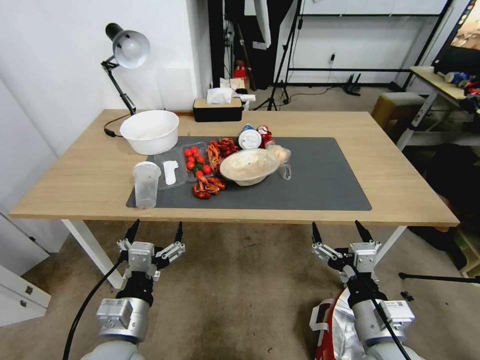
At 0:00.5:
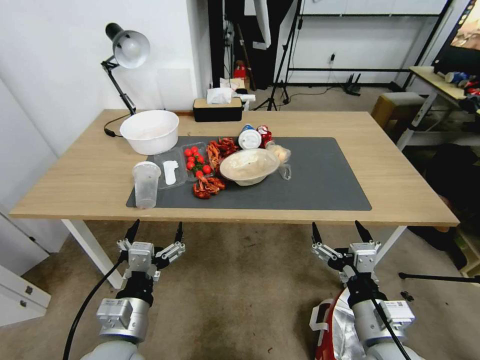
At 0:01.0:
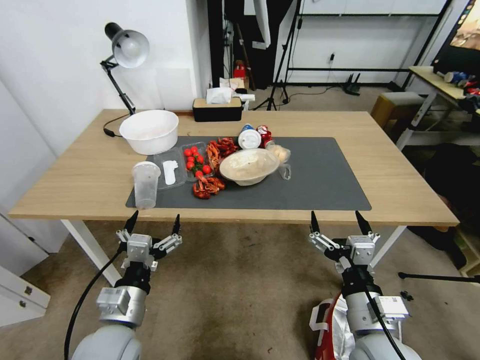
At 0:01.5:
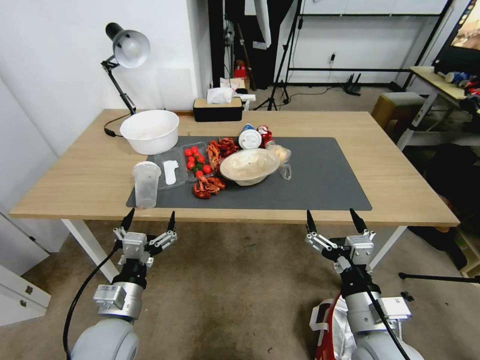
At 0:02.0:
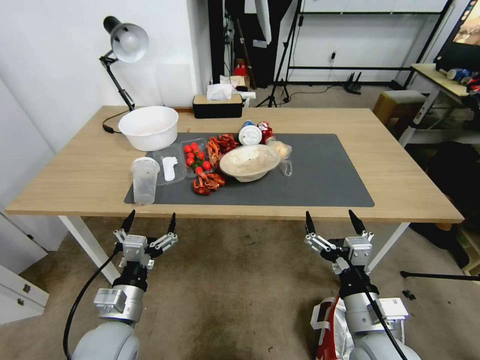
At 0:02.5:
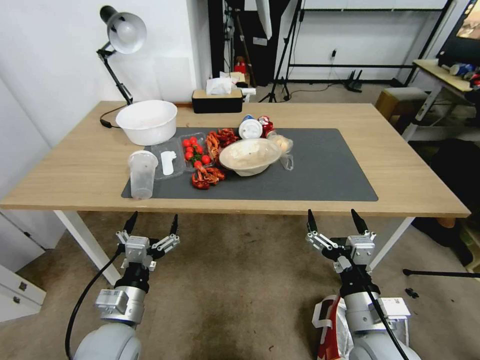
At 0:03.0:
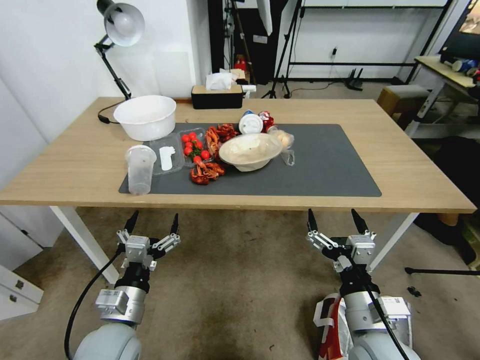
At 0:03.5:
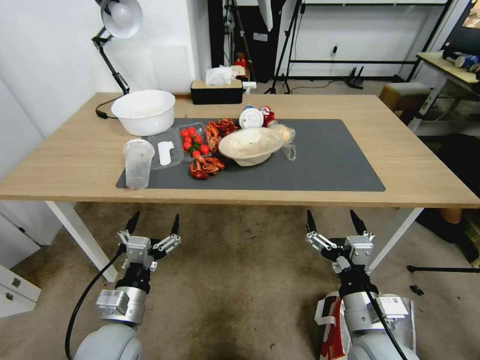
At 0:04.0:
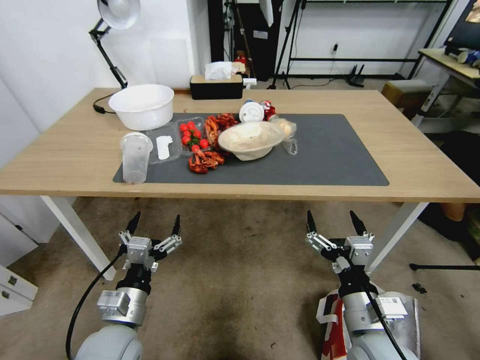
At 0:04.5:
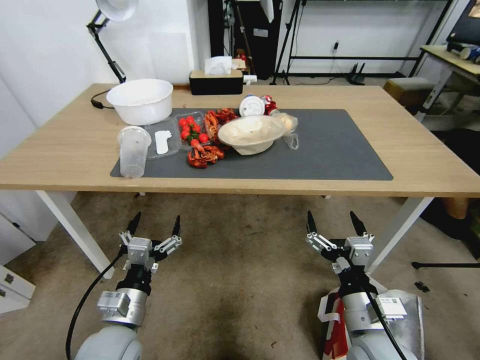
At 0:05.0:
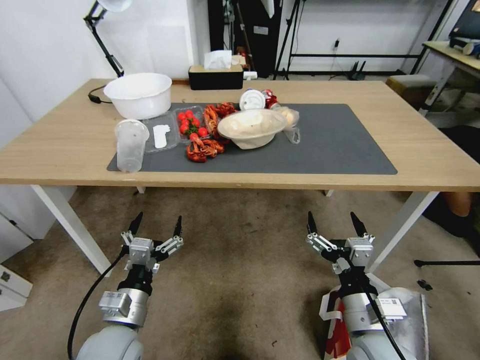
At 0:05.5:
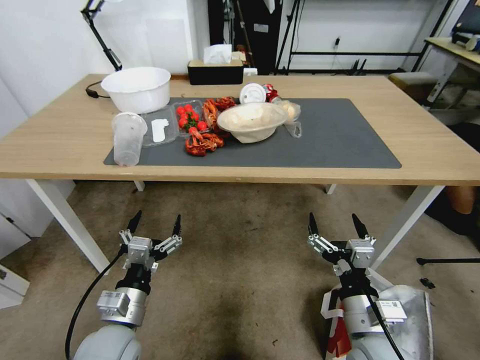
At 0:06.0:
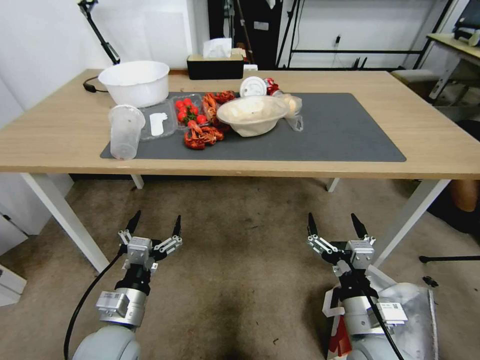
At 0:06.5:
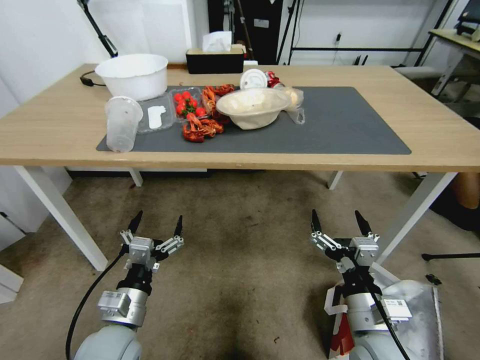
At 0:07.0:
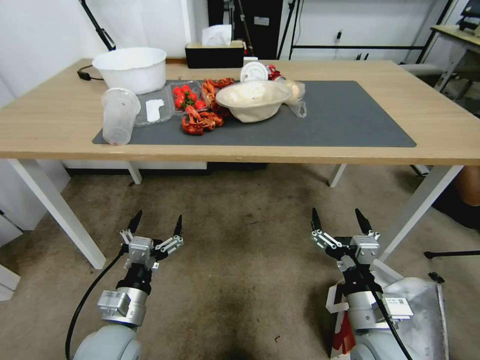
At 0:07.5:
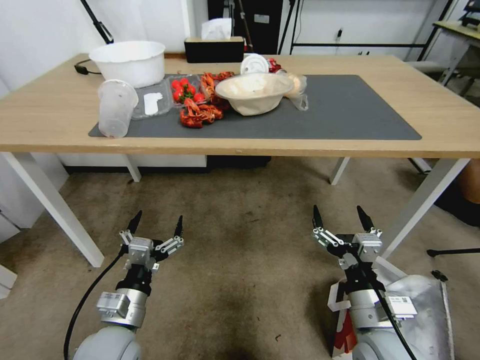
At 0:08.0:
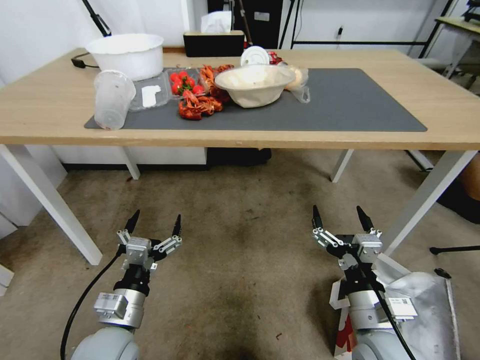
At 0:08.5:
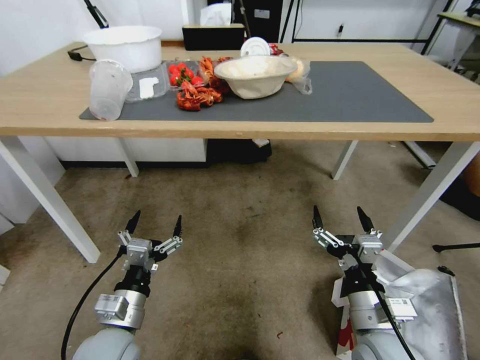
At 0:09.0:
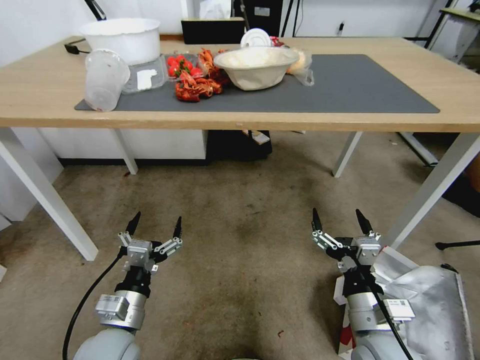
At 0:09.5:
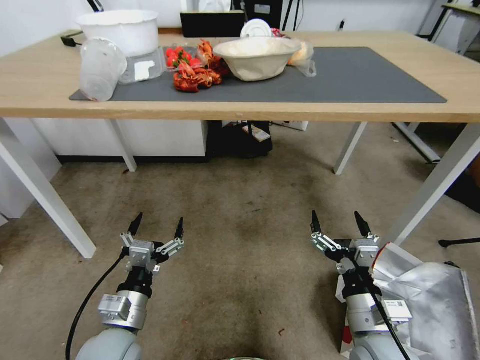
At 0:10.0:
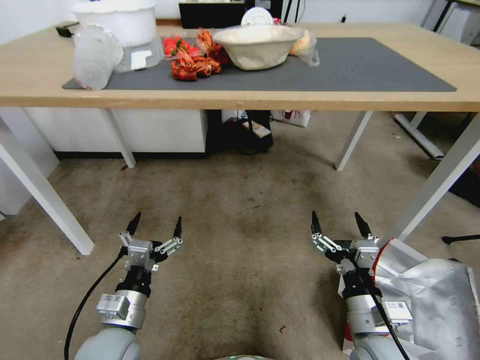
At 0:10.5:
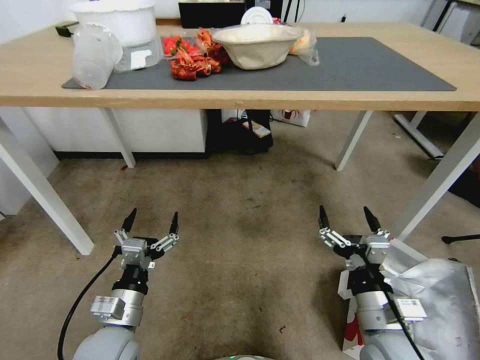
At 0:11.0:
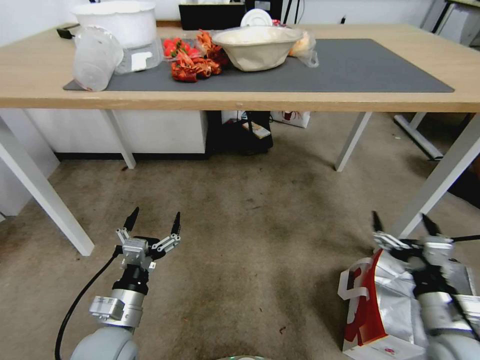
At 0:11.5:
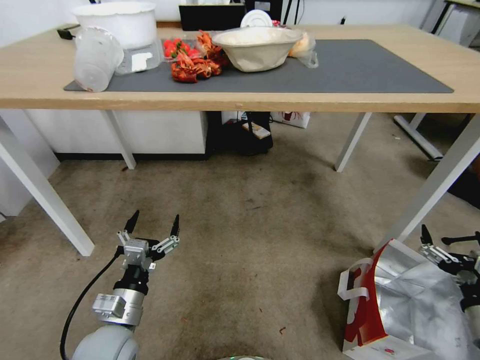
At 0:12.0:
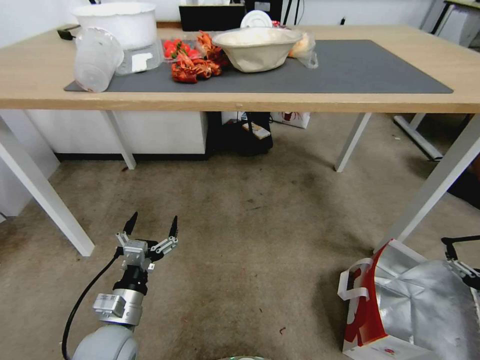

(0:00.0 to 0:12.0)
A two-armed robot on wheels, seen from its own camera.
Task of the whole recording: Pick up the food delivery bag from the floor and place it on the table.
0:10.0 - 0:12.0: The right gripper is displaced to the right by approximately 25 cm.

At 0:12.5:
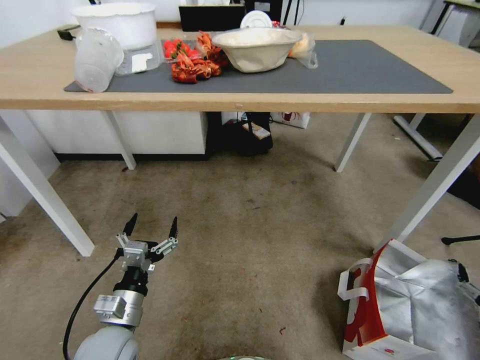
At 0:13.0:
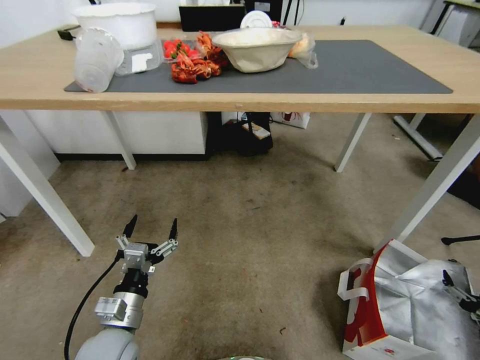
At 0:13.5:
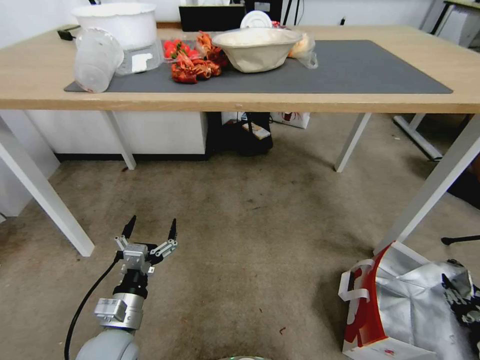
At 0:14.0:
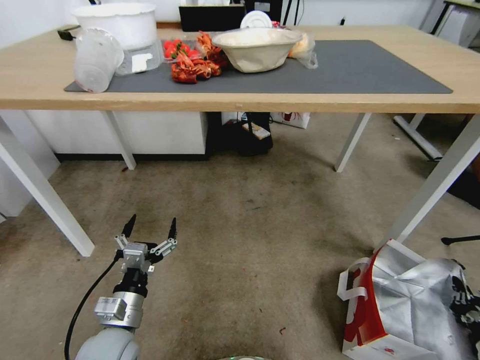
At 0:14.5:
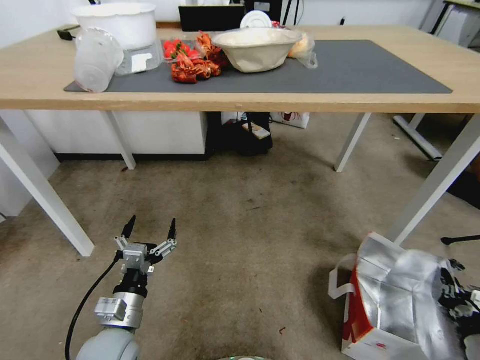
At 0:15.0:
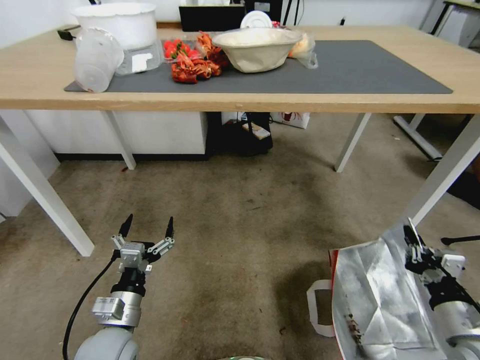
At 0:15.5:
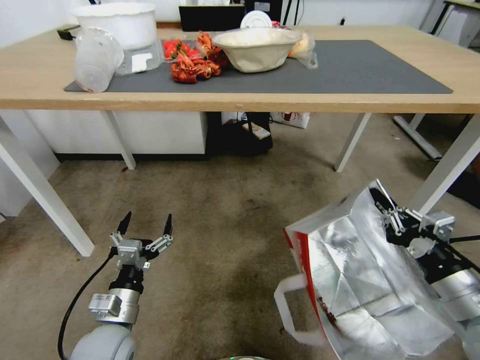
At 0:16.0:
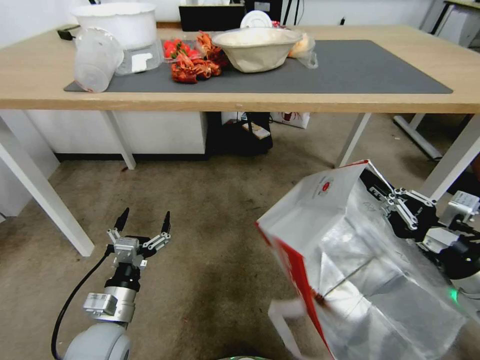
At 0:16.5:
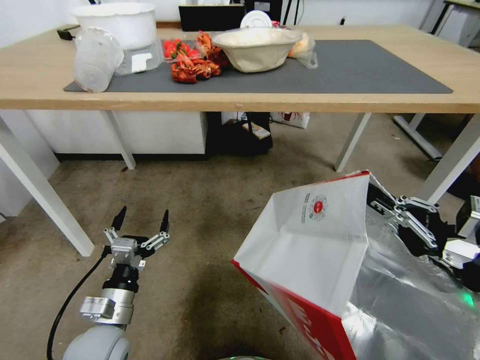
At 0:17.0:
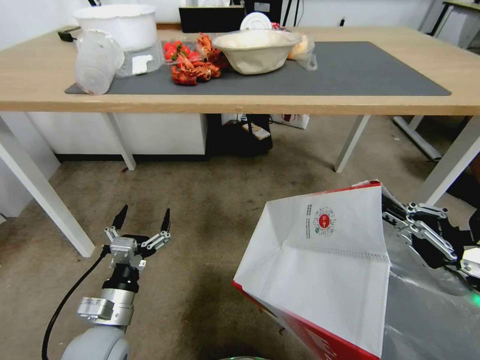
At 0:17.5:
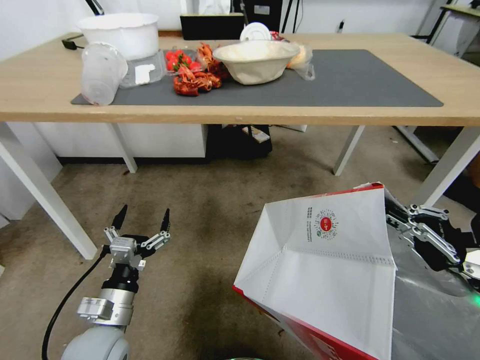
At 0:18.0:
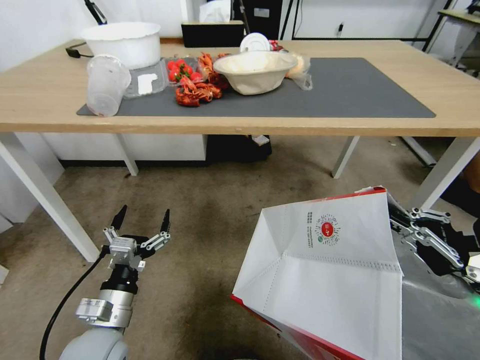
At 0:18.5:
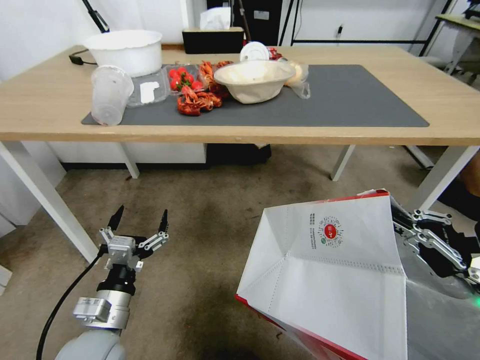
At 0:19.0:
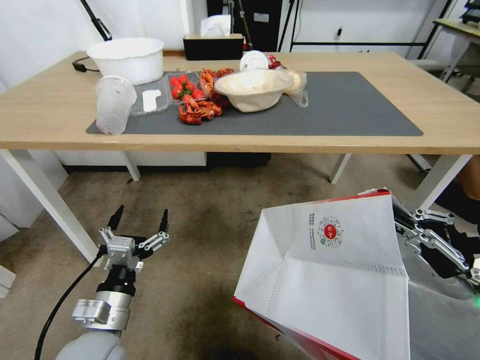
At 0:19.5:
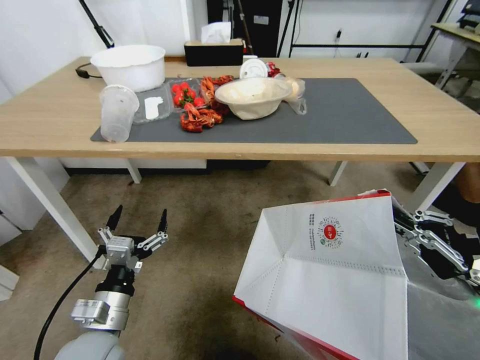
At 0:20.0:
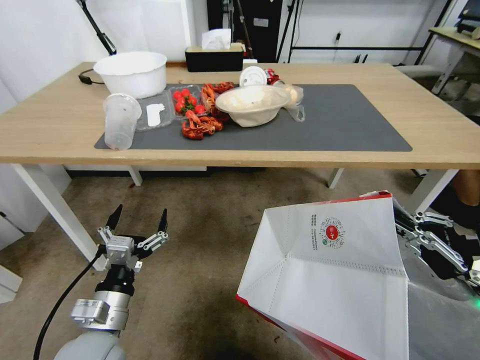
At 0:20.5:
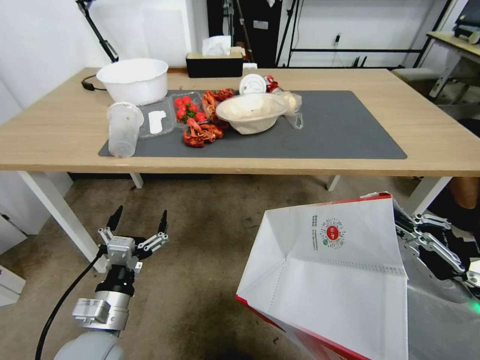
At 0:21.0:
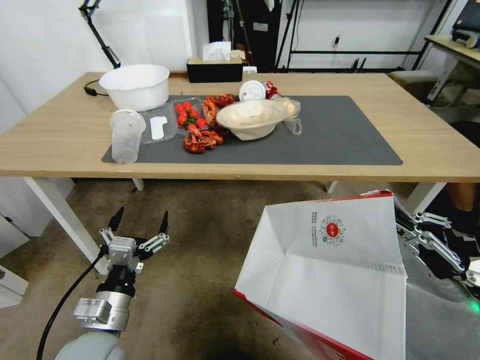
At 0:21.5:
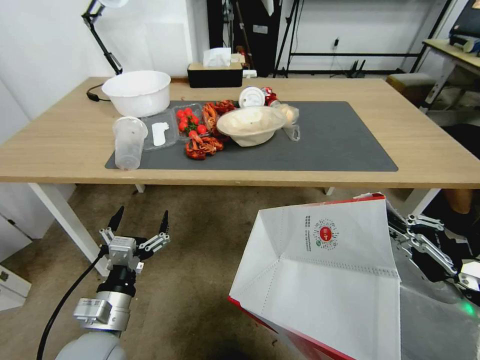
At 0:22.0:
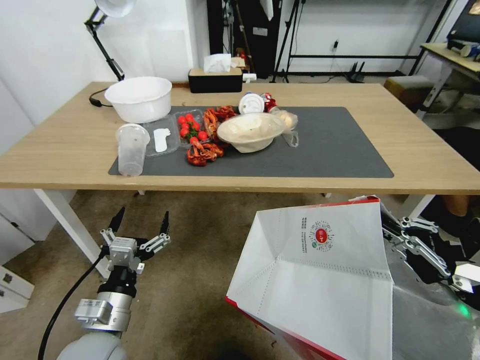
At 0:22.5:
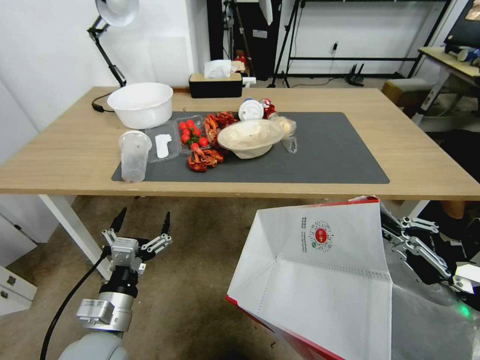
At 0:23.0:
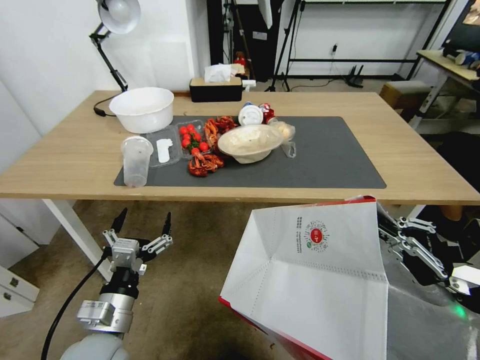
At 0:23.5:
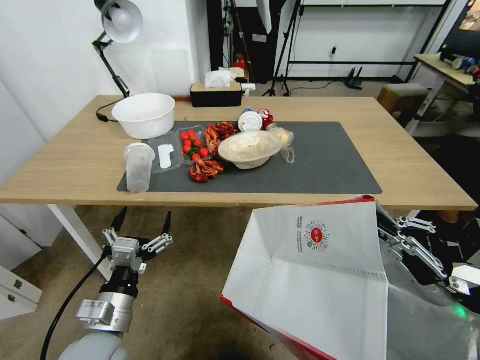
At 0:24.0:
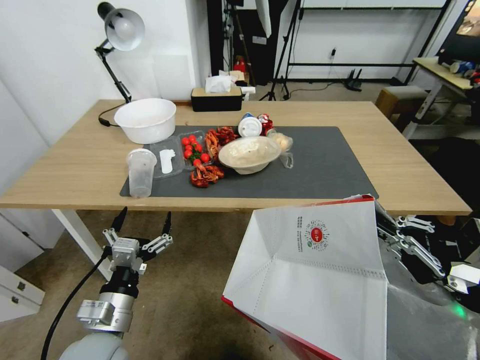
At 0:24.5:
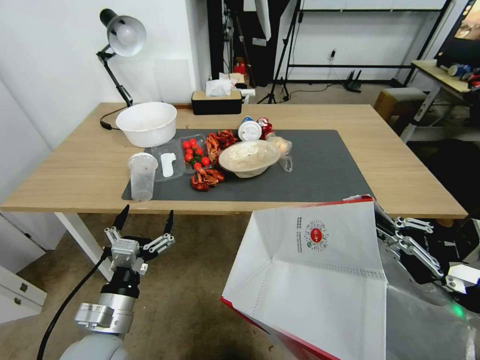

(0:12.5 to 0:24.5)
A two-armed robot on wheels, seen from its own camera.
Task of the whole recording: Pick up the food delivery bag from the floor and place it on the table.
0:12.5 - 0:14.5: The right gripper closes up.
0:14.5 - 0:16.5: The right gripper heads upward, covering some 25 cm.

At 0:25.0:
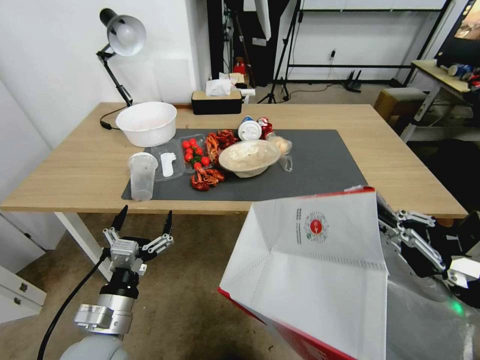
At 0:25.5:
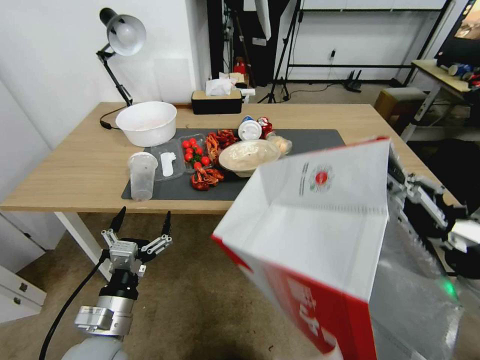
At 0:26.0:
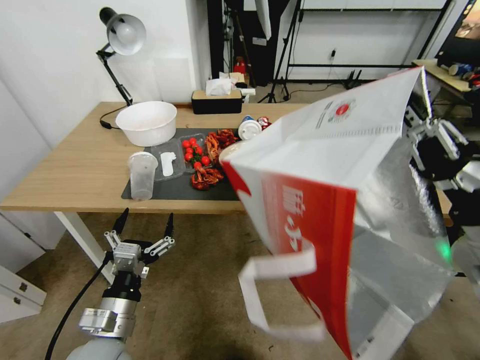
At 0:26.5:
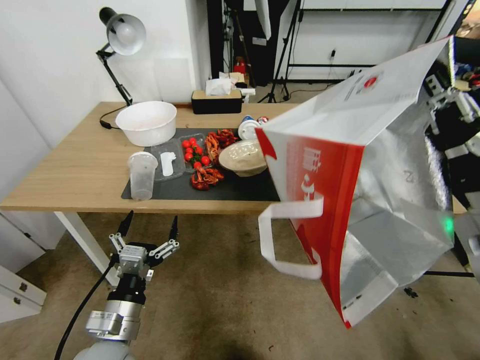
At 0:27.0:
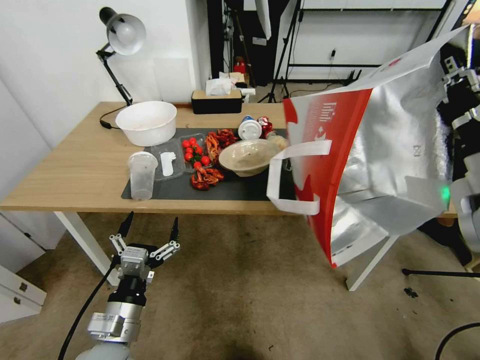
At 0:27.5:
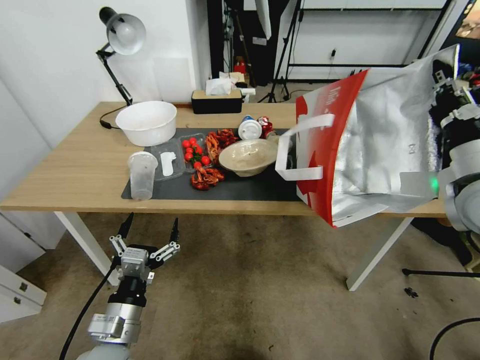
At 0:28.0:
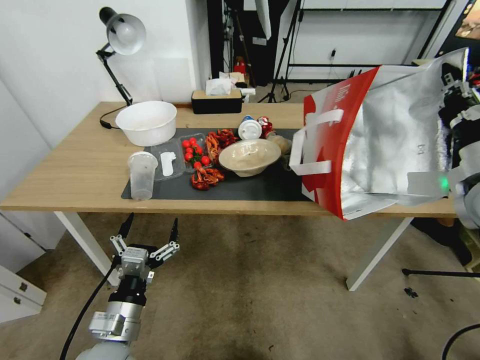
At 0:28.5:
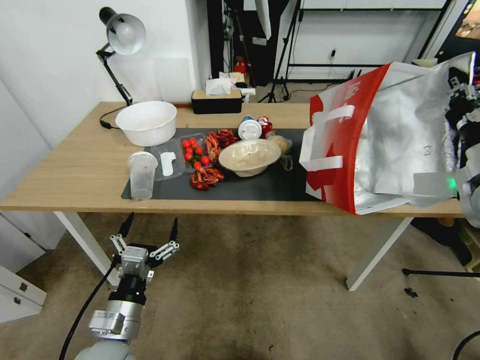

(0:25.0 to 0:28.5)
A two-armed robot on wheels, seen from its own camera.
Task of the whole recording: Pick up the food delivery bag from the floor and place it on the table.
0:25.0 - 0:27.0: The right gripper shifts approximately 15 cm upward and forward.
0:27.0 - 0:28.5: The right gripper shifts approximately 10 cm to the right and forward.
